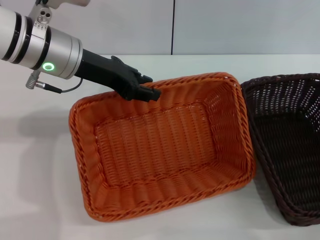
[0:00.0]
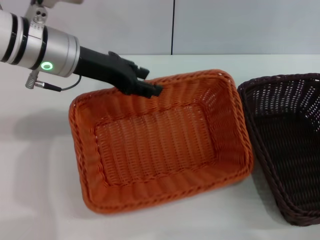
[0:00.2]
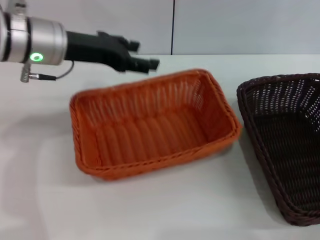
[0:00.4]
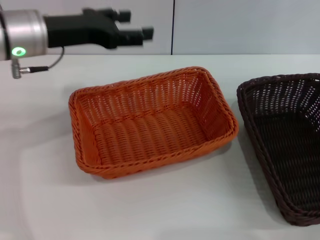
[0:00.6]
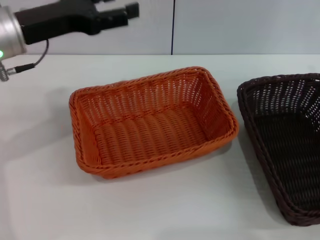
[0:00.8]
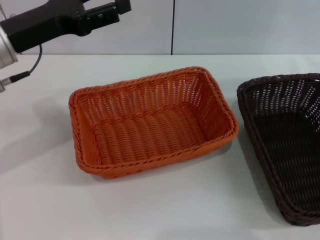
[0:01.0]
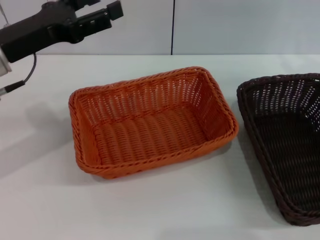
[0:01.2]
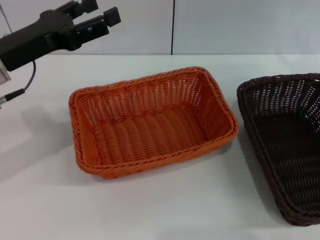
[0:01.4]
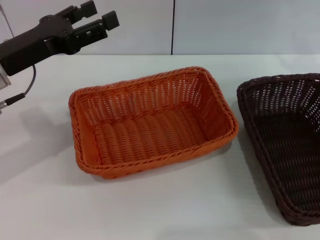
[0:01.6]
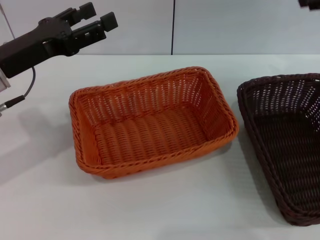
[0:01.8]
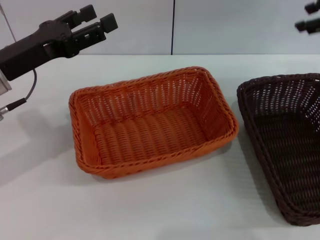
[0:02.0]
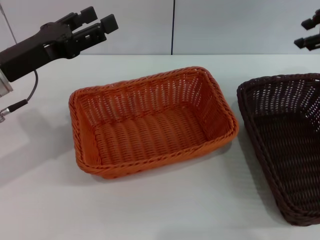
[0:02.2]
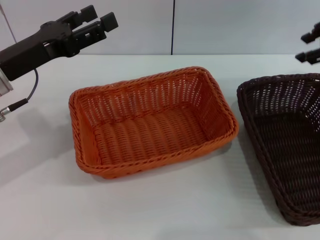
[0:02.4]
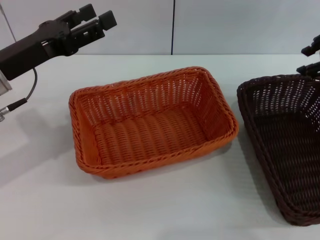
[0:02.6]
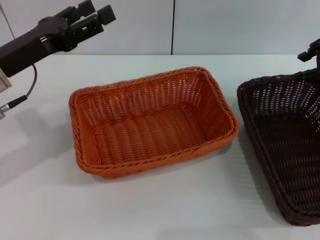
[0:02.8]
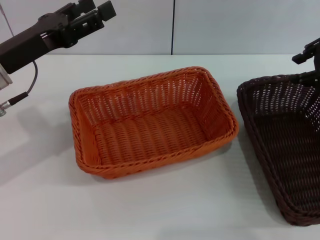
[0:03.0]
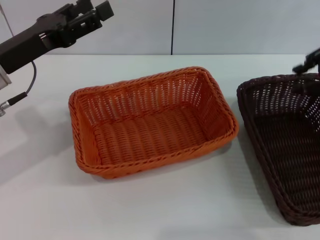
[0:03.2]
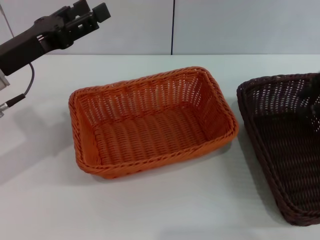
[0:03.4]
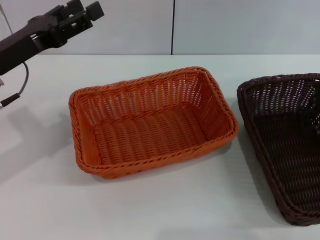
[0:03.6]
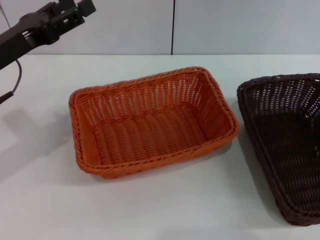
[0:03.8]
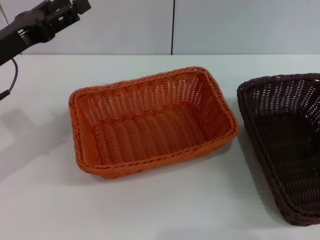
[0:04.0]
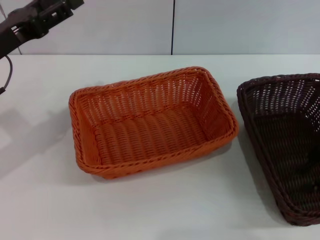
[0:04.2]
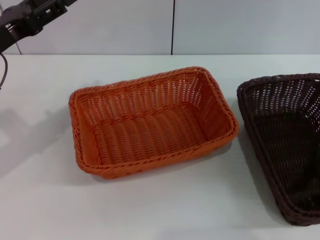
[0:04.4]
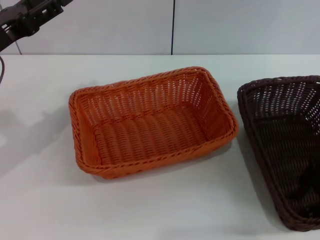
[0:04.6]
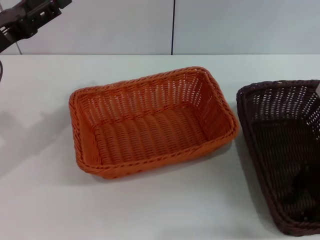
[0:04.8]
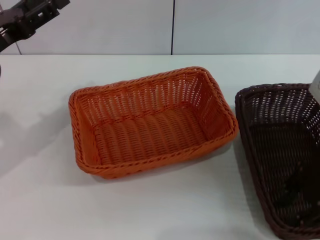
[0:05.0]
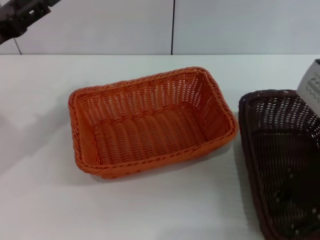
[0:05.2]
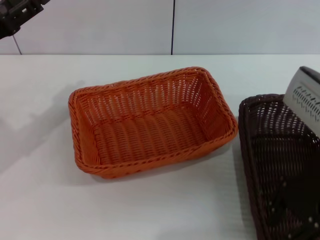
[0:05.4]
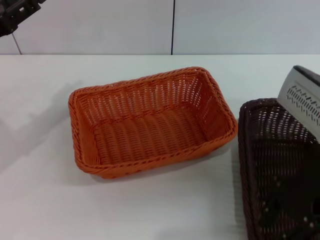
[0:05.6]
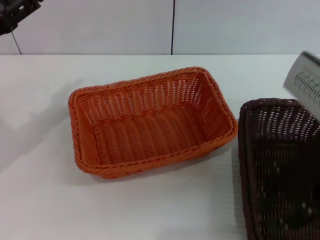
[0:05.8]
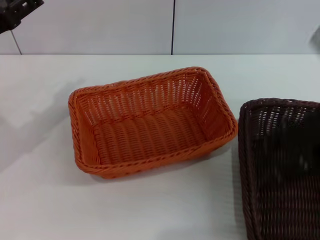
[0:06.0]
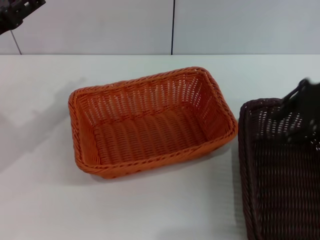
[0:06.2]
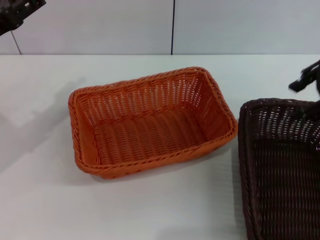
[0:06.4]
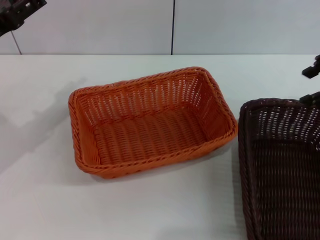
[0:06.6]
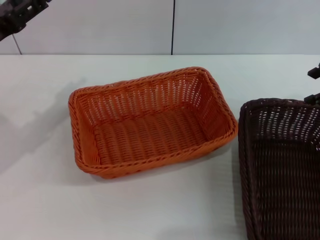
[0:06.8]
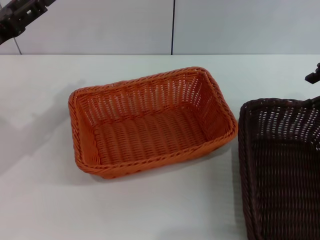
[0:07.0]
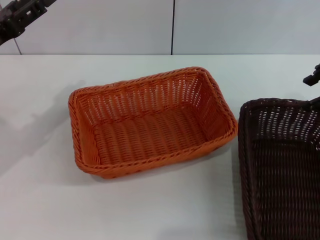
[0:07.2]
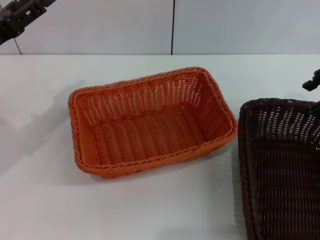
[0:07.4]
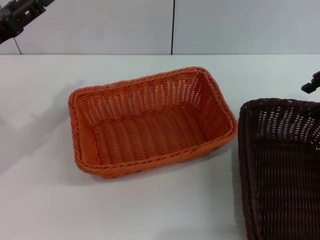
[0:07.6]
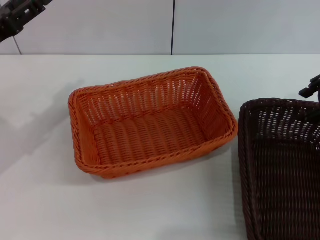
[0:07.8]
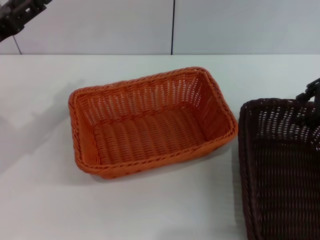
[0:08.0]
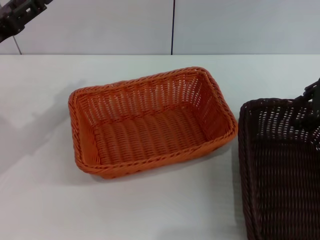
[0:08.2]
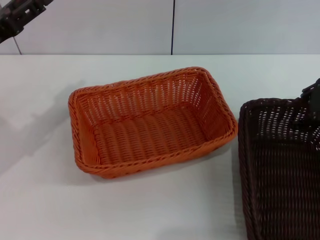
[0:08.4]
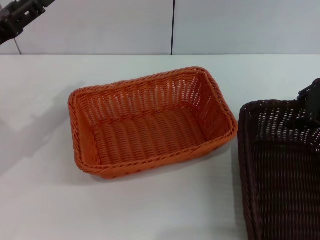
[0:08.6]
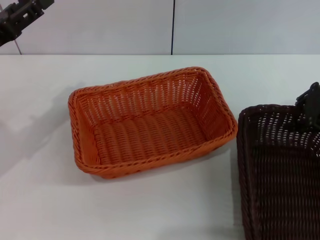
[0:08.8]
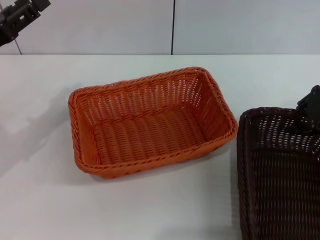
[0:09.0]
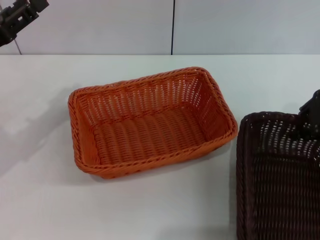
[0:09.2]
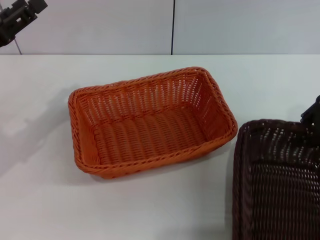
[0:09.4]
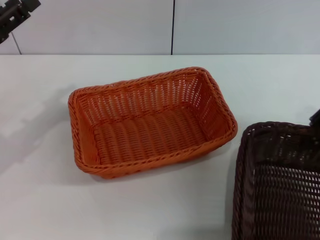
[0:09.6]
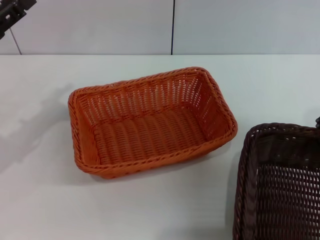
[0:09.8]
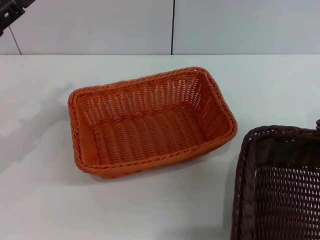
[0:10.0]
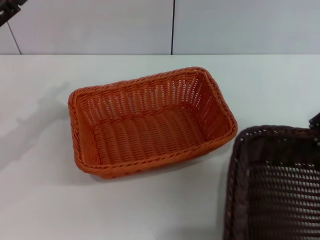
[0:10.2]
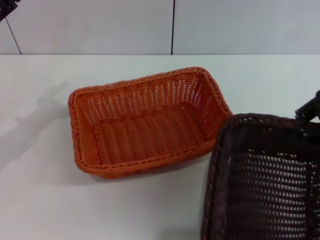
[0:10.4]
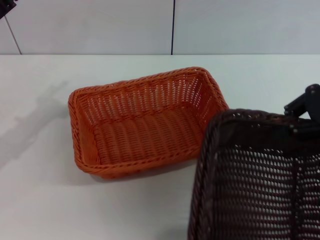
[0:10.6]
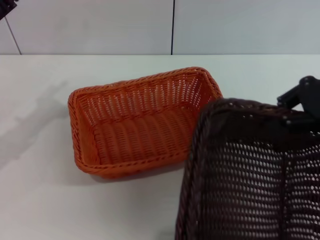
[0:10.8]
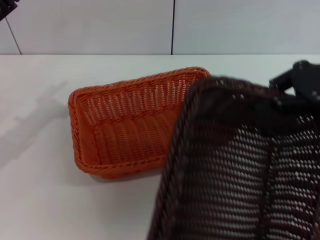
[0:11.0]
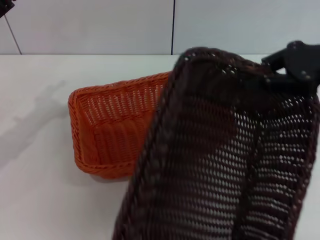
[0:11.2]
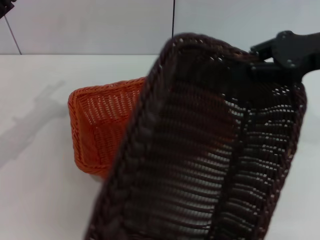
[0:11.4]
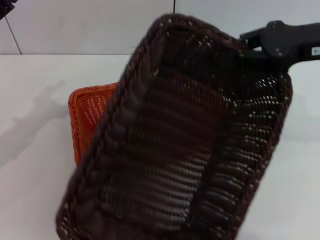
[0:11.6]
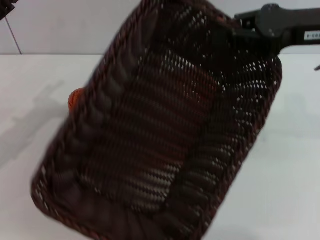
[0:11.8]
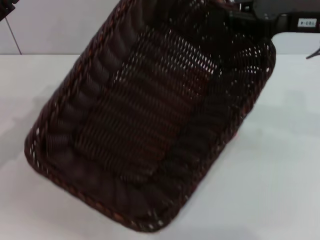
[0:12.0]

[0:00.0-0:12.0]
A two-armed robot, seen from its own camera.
Step, 0:00.6 to 0:09.2: Grasp the dark basket with right gripper.
0:00.0 to 0:01.6: The left gripper heads to the left and backward, covering approximately 10 cm, and opens. Meanwhile the right gripper travels upward and forward by roughly 20 cm.
0:01.6 to 0:03.0: The right gripper moves approximately 5 cm.
0:03.0 to 0:04.4: The right gripper goes roughly 10 cm backward and downward.
0:04.4 to 0:06.0: The right gripper moves to the left and upward, some 10 cm.
0:06.0 to 0:07.6: The right gripper moves to the right and forward, about 10 cm, and opens.
0:07.6 to 0:09.0: The right gripper closes its fingers.
0:09.0 to 0:10.4: The right gripper ends up roughly 5 cm from where it was, and closes.
0:10.4 to 0:12.0: The right gripper heads to the left, covering roughly 5 cm.

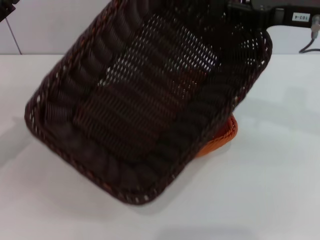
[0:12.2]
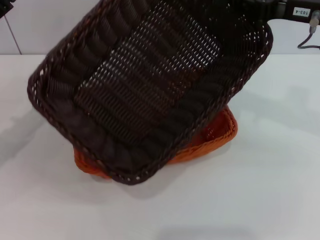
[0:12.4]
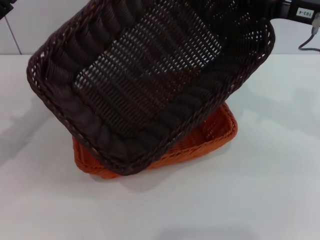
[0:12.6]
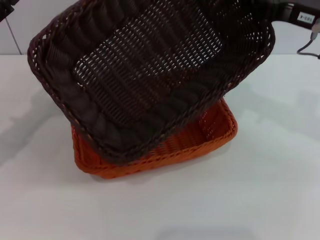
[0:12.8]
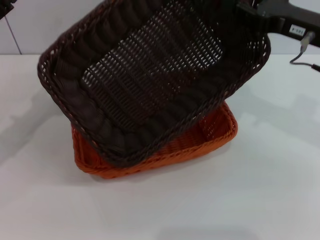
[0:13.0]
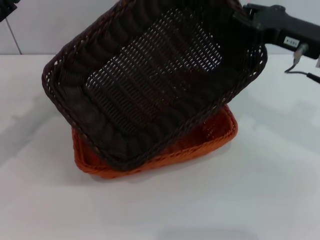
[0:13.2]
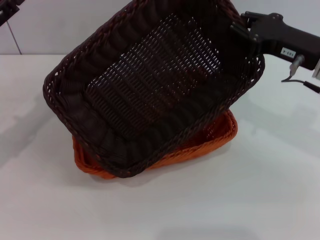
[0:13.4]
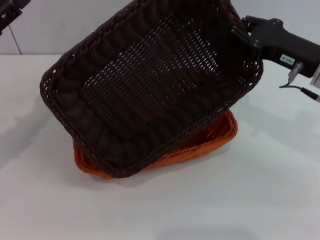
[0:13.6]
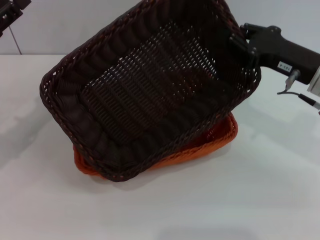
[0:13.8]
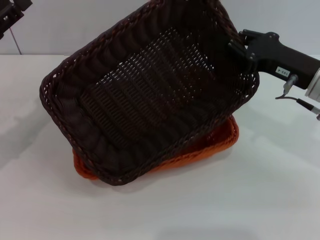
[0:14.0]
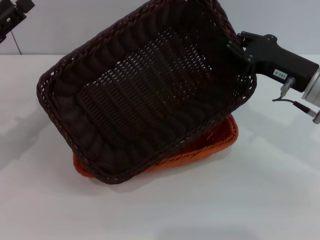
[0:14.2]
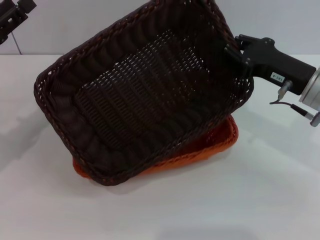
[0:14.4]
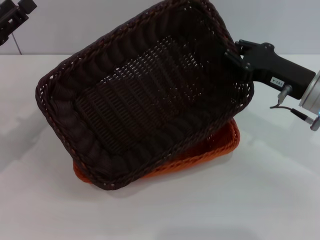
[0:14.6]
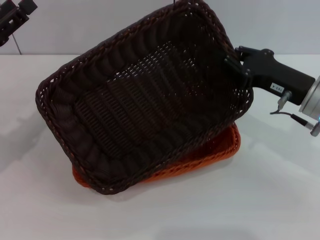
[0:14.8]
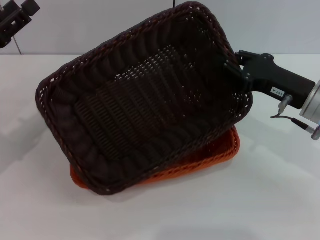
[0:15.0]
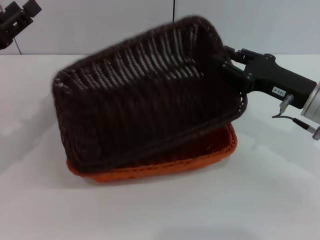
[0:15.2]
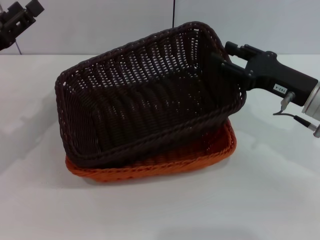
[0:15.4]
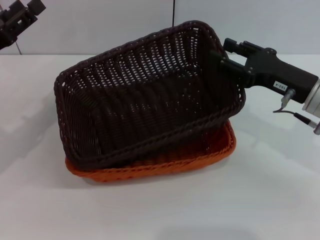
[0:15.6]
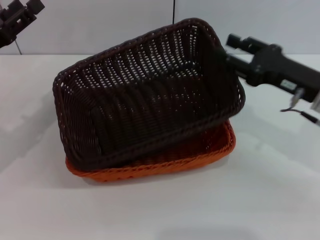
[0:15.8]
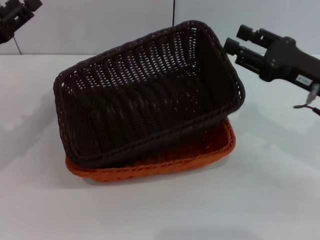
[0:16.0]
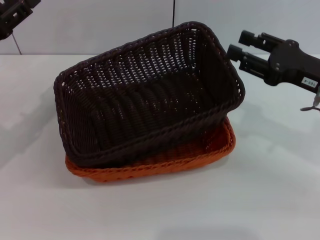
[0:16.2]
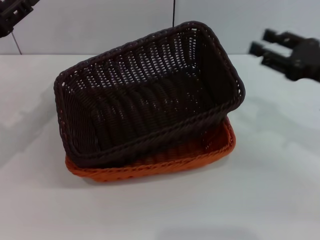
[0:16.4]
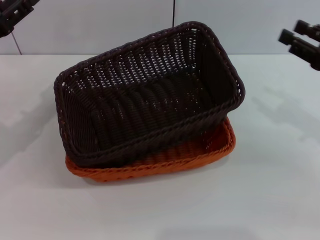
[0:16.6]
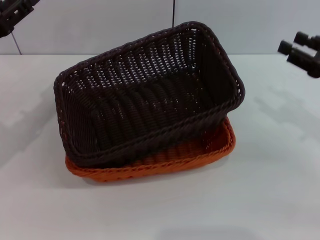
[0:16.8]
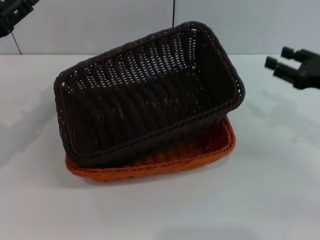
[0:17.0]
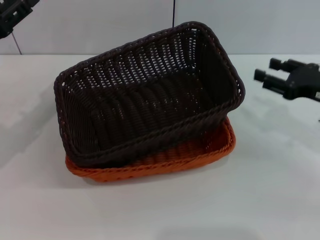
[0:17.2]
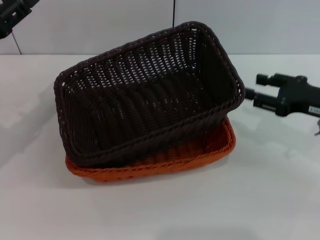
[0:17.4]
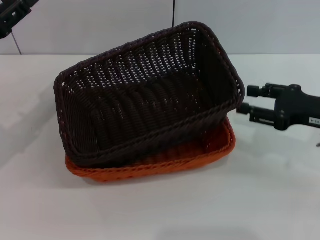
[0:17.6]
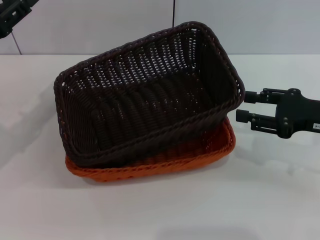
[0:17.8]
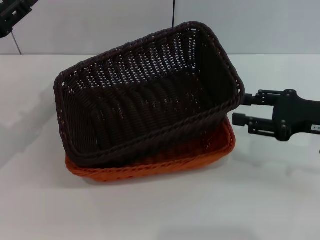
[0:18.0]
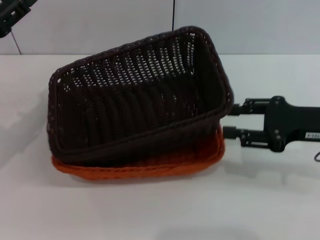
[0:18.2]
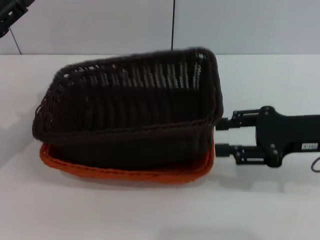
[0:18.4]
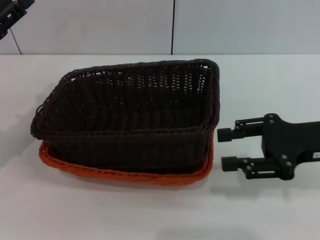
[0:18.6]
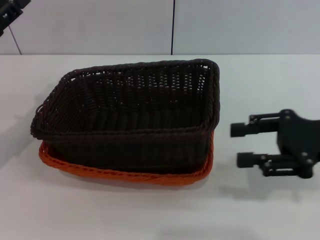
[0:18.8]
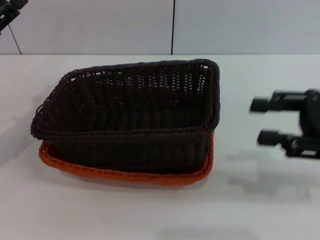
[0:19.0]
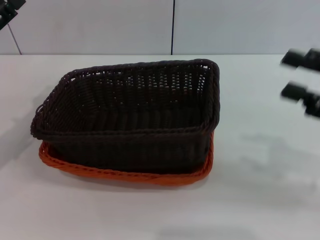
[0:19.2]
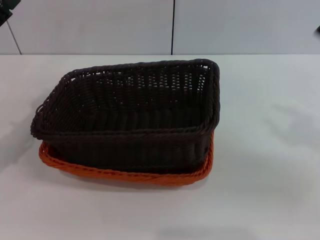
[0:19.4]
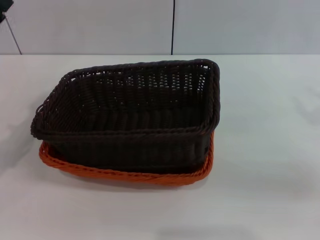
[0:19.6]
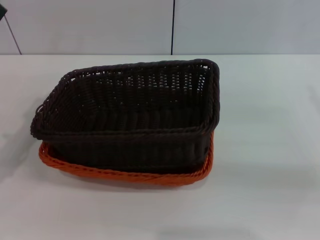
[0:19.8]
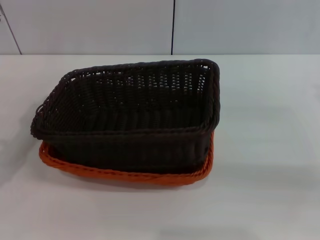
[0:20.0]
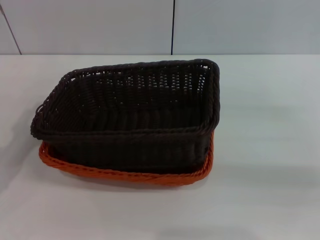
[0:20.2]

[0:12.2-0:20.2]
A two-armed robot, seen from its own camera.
Step, 0:12.2 to 0:15.8: Place the dark basket on the light basket with right gripper.
0:12.2 to 0:13.8: The right gripper heads downward, covering roughly 10 cm.
0:13.8 to 0:15.4: The right gripper opens up.
0:15.4 to 0:17.0: The right gripper is displaced to the right by some 10 cm, and opens up.
0:17.0 to 0:18.6: The right gripper moves to the left, approximately 5 cm.
0:18.6 to 0:20.2: The right gripper is displaced to the right by approximately 10 cm. Meanwhile the left gripper moves backward, approximately 5 cm.
